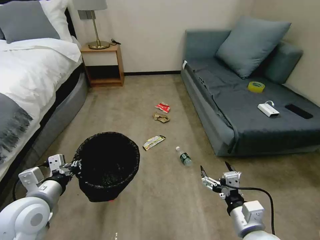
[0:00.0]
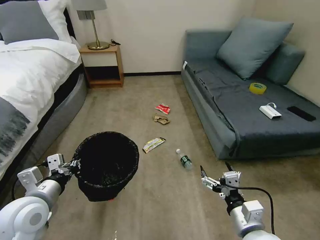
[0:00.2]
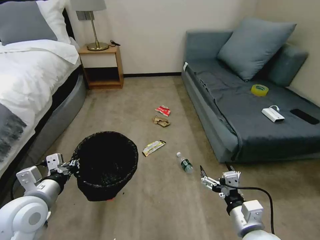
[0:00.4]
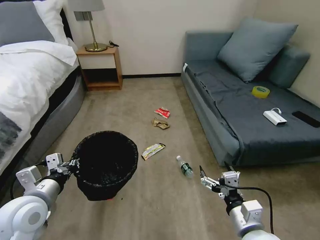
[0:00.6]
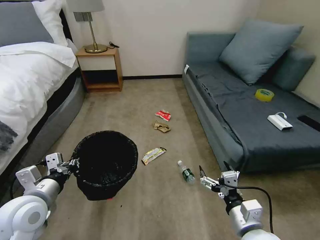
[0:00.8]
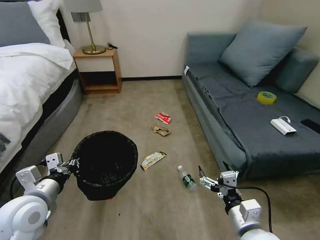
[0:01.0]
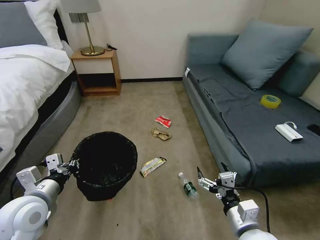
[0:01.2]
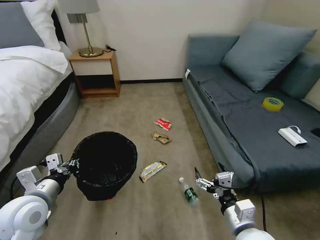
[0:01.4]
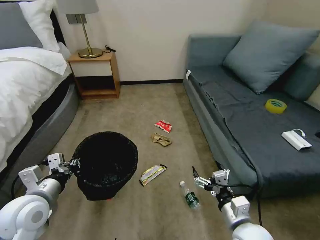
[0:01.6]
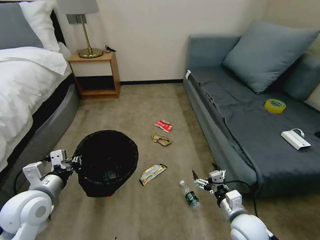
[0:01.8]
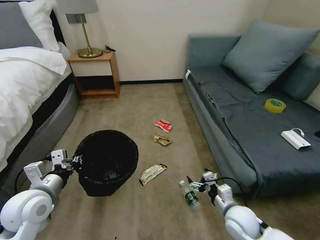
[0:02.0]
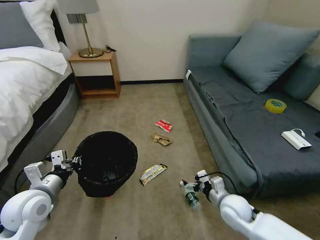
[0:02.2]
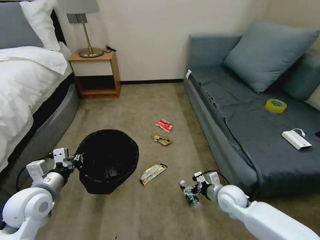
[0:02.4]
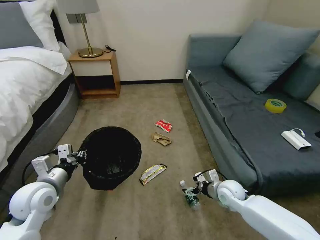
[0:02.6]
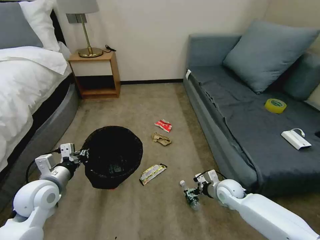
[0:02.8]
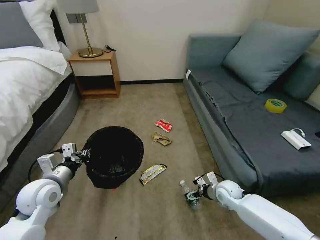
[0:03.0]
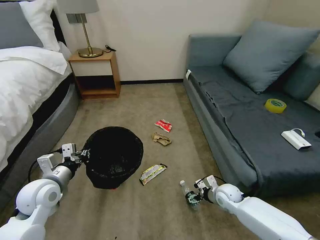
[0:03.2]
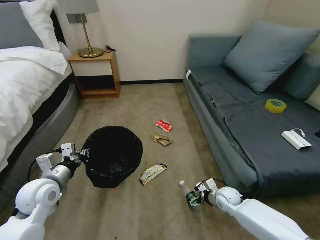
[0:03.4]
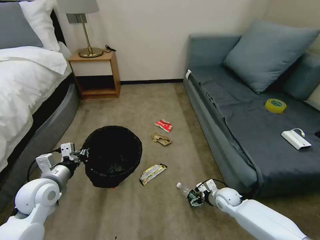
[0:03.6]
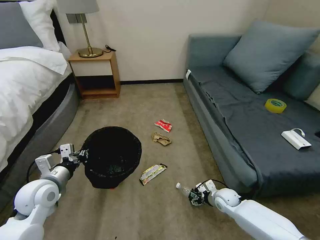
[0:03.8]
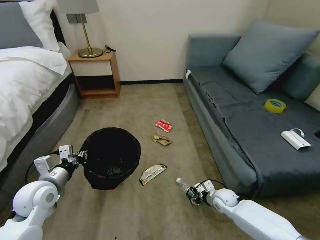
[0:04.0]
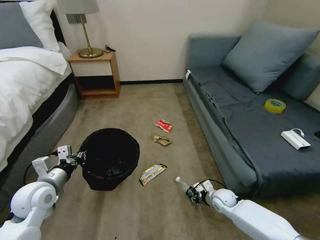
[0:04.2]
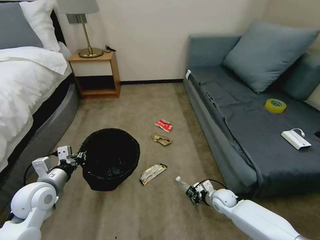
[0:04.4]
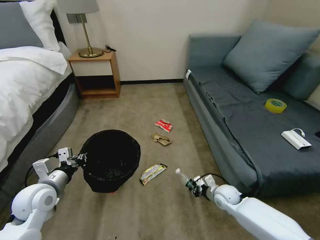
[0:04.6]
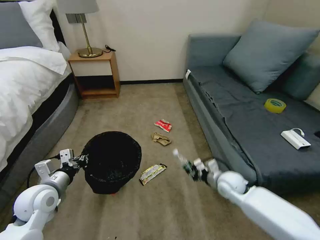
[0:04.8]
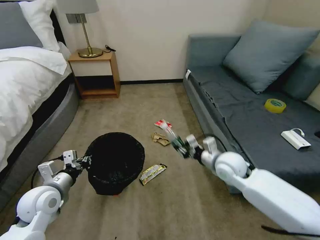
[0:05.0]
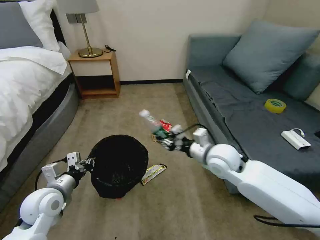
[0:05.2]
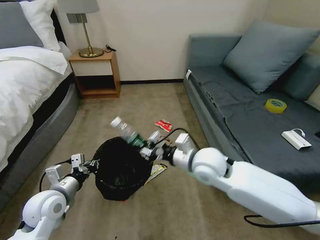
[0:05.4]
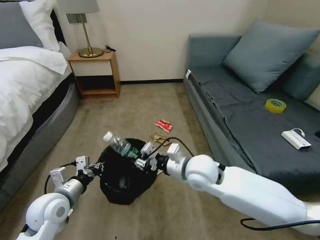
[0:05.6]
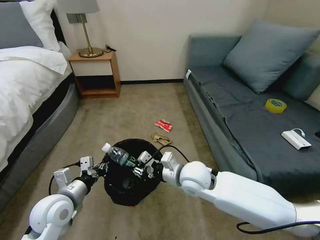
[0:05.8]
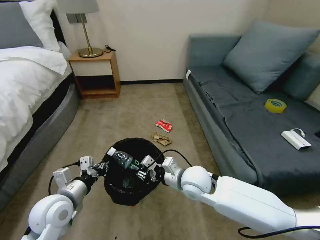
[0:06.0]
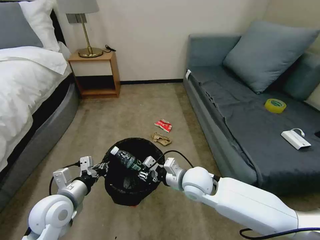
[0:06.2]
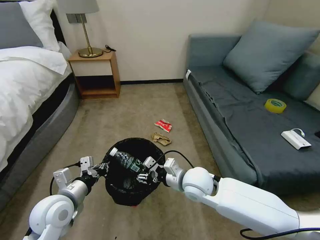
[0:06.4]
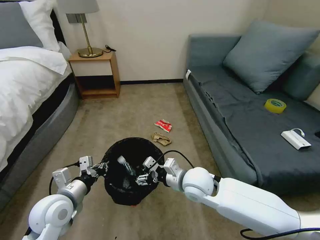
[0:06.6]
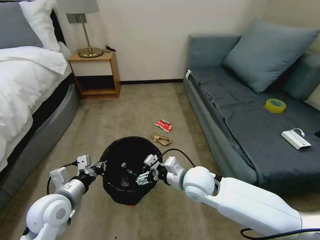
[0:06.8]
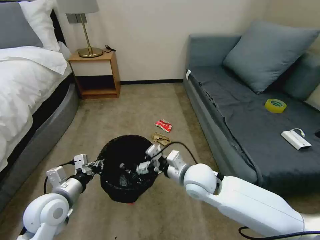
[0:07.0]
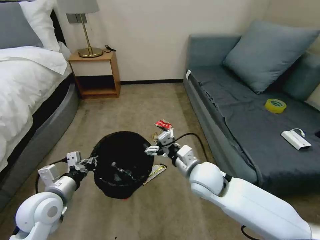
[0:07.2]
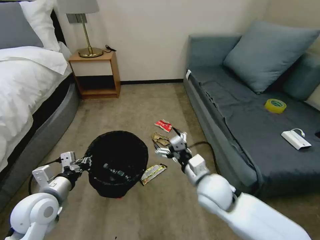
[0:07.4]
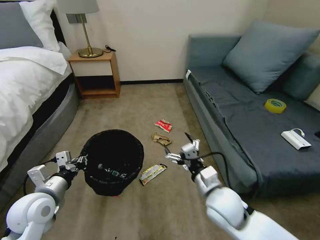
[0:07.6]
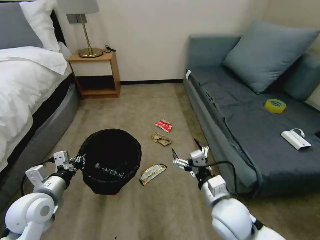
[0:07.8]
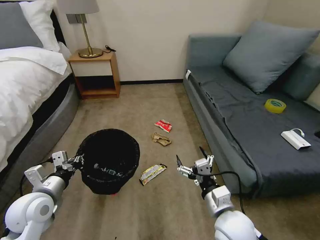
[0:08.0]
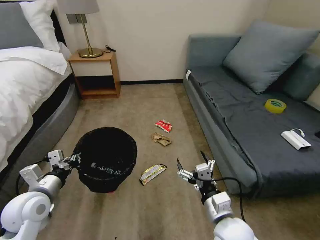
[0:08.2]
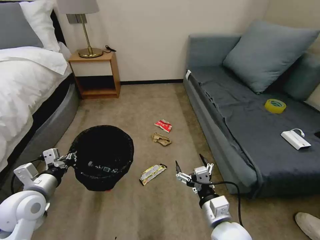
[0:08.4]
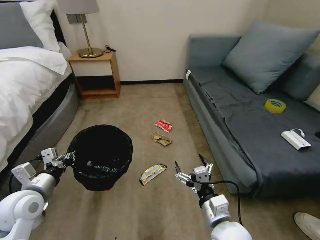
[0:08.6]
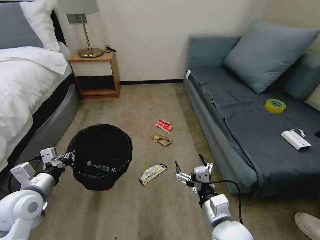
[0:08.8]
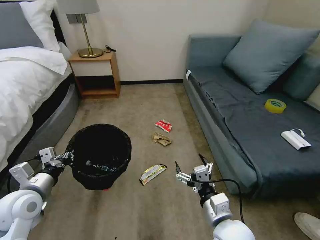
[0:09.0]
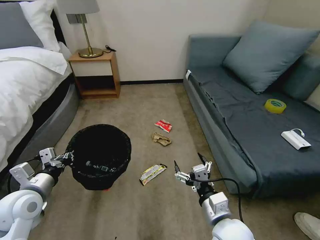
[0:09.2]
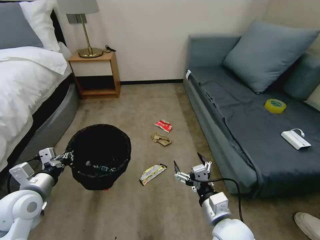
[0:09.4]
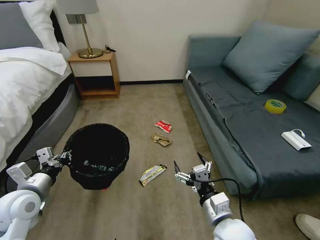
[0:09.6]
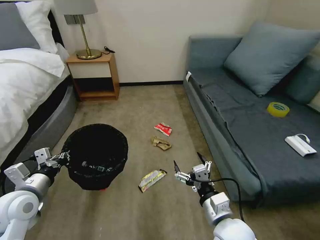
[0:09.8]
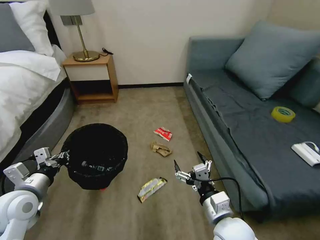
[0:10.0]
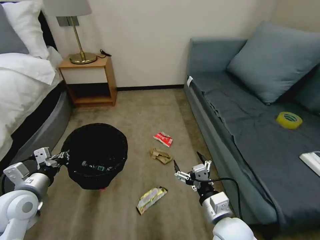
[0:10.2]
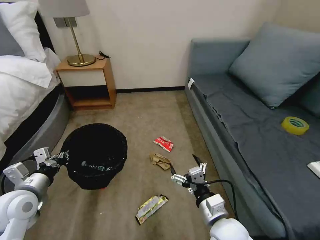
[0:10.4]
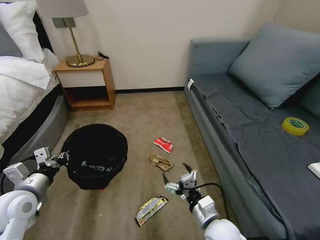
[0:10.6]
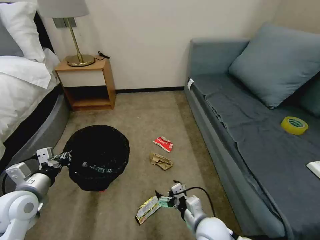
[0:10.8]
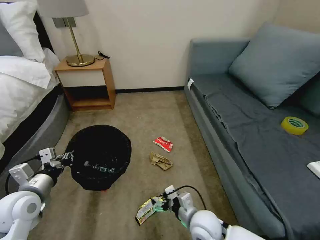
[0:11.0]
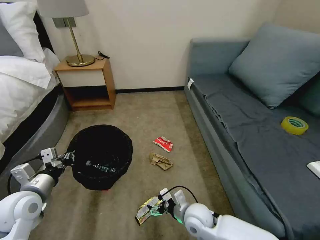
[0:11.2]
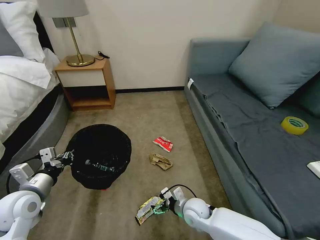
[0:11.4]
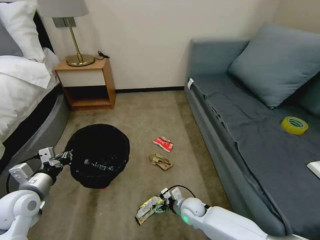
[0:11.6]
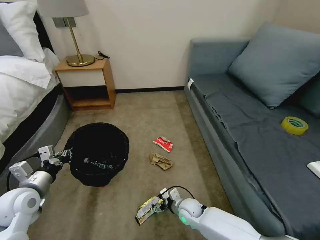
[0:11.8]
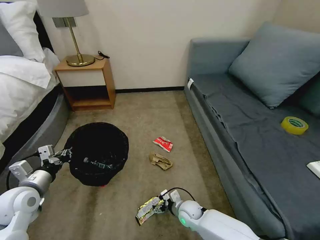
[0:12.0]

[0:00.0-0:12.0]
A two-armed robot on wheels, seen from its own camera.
Task of the whole recording: Pick up the trash bin, then pick up the garbage on the floor and place it into the trash bin.
0:01.6 to 0:03.0: The left gripper is displaced forward by approximately 5 cm. Meanwhile the right gripper shifts about 20 cm forward and downward.
0:03.0 to 0:04.4: The right gripper shifts approximately 5 cm downward, and closes.
0:04.4 to 0:06.0: The left gripper travels to the right by some 5 cm. Meanwhile the right gripper goes roughly 30 cm upward and to the left.
0:06.0 to 0:07.6: The right gripper goes about 10 cm backward and to the right, and opens.
0:07.6 to 0:09.0: The right gripper goes some 10 cm backward.
0:10.4 to 0:12.0: The right gripper heads downward and forward, covering approximately 25 cm.

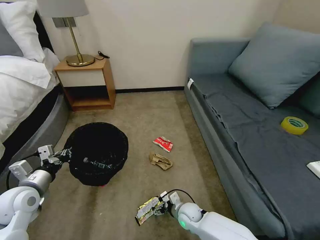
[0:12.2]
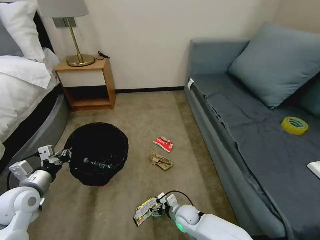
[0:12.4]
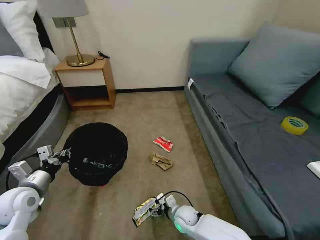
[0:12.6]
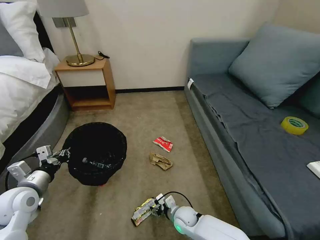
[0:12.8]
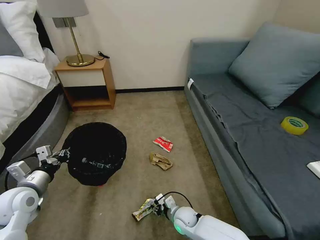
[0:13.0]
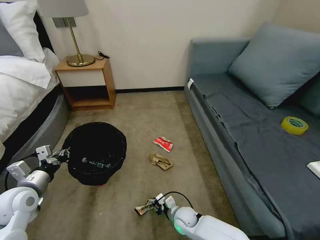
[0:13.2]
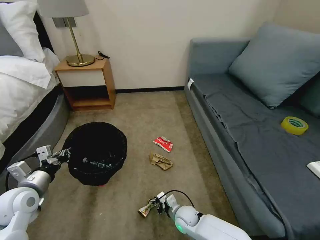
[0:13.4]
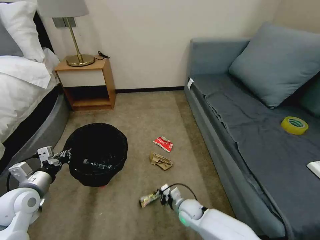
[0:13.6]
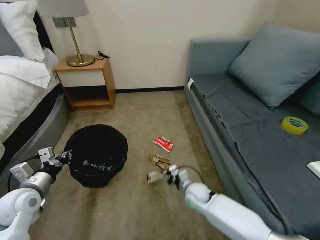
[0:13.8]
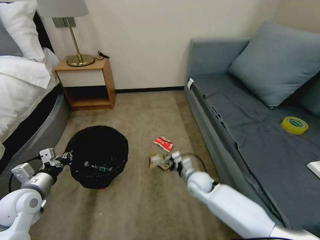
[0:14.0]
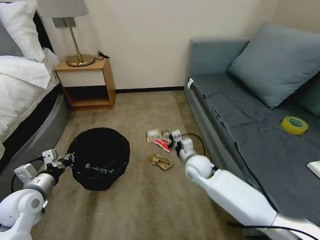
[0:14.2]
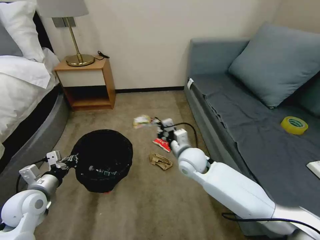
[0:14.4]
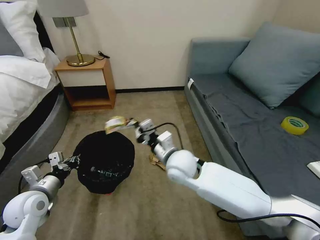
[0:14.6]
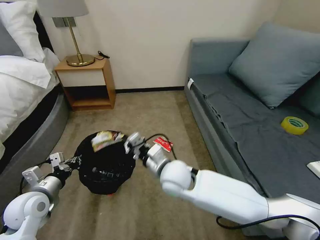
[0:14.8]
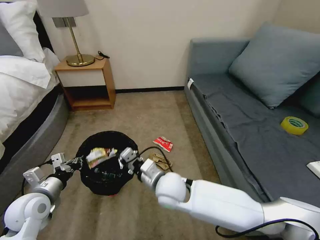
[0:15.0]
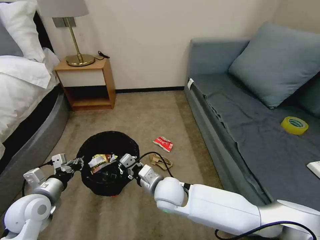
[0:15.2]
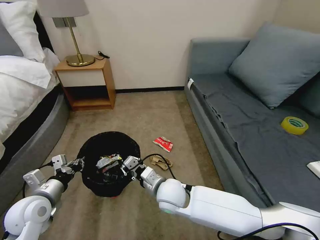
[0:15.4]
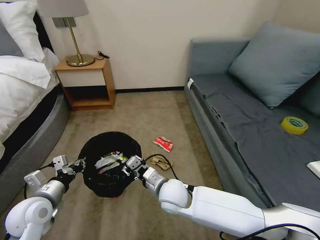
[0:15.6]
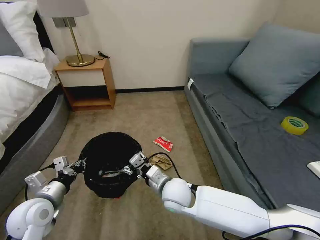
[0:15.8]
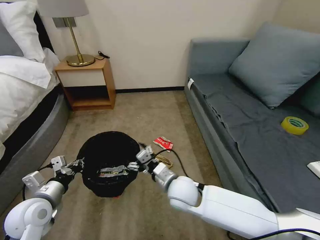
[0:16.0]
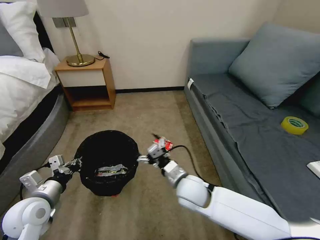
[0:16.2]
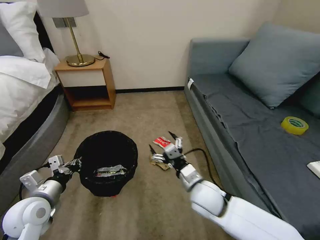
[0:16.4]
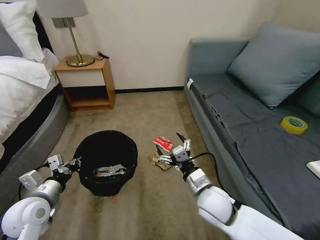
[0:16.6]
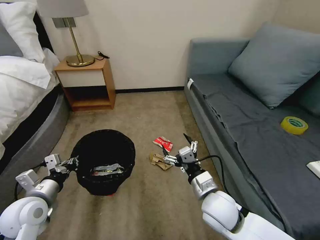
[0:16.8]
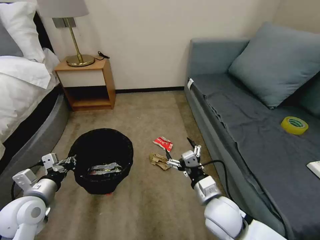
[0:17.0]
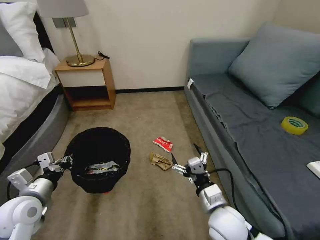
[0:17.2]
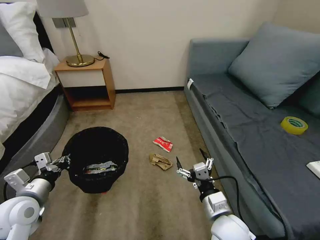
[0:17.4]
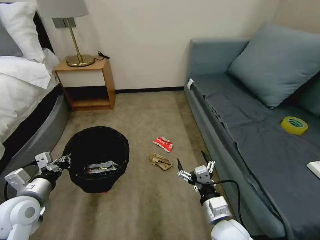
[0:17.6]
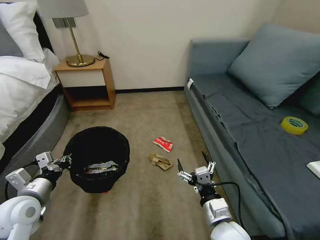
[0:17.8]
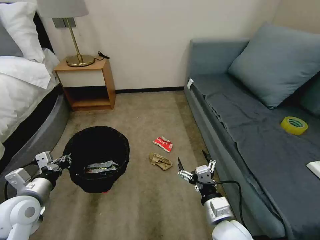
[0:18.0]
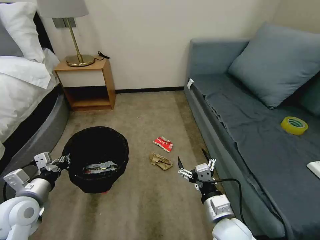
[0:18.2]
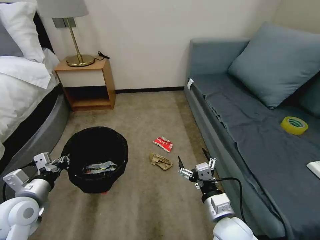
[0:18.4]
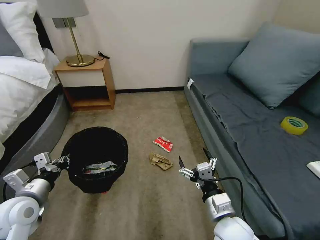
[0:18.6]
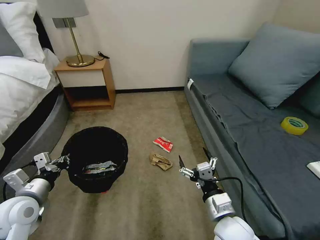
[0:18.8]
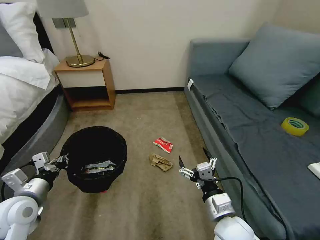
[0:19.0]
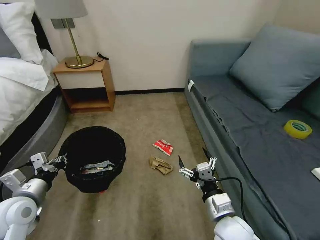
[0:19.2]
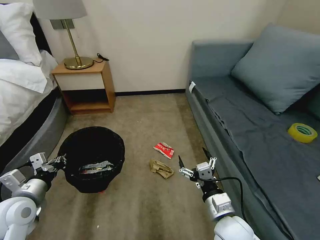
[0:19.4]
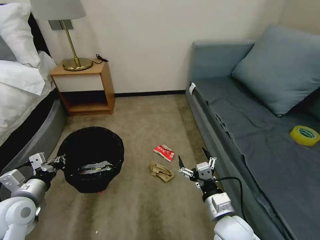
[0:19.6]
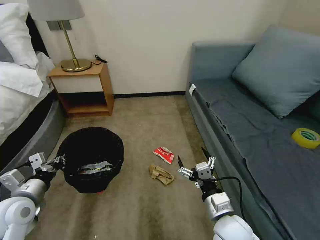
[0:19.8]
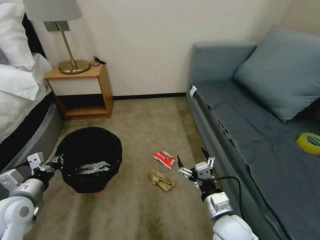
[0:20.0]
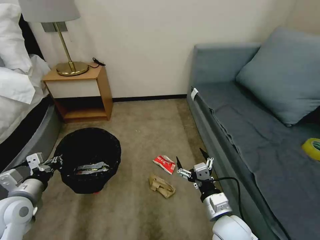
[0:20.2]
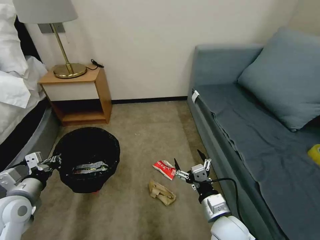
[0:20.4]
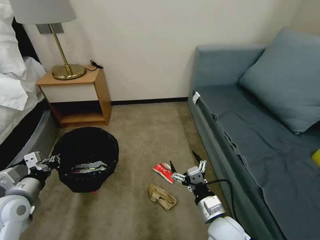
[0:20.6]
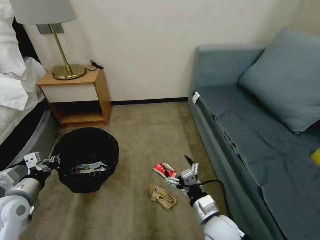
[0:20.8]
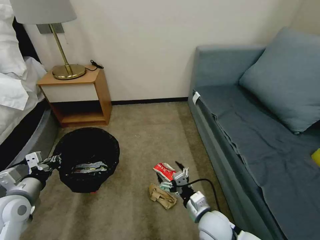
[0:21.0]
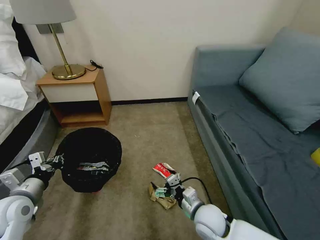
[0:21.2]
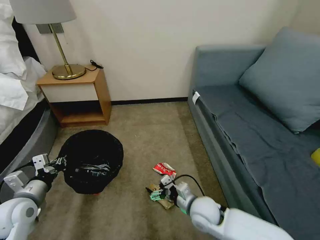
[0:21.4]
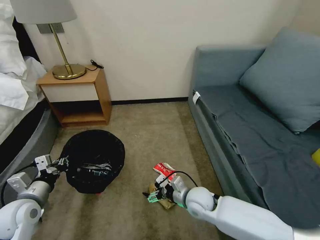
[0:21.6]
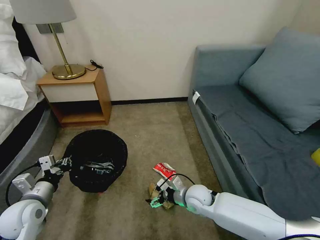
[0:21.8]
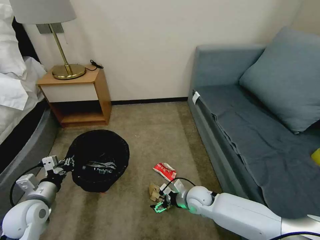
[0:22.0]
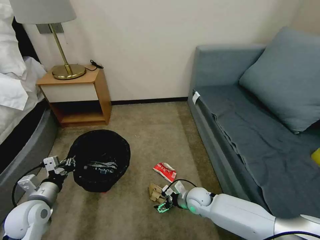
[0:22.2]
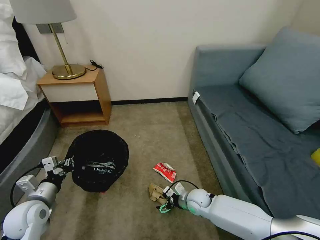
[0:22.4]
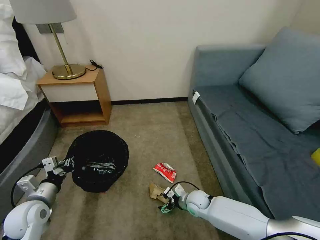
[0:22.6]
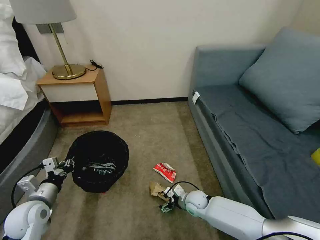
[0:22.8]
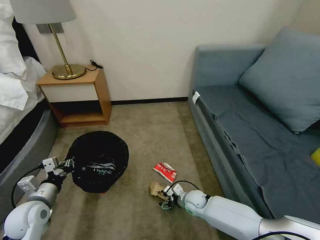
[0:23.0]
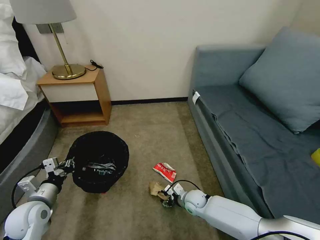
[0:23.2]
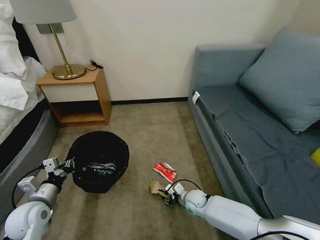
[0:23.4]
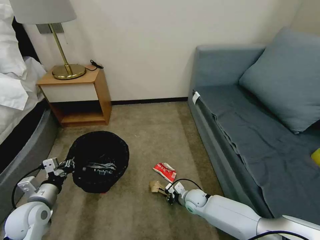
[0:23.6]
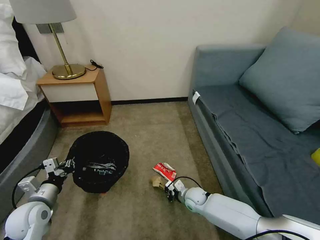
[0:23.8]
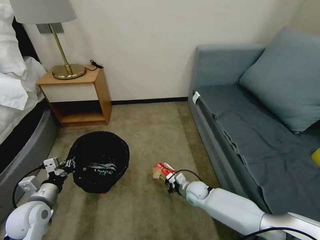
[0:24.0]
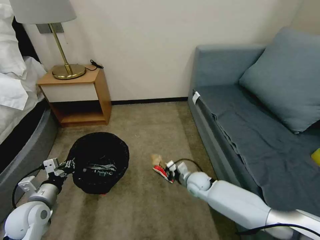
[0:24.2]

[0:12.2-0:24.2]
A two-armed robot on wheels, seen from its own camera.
Task of the whole recording: Pick up the trash bin, then pick up the garbage on the floor and place it into the trash bin.
0:12.2 to 0:13.8: The right gripper is displaced upward and forward by approximately 10 cm, and closes its fingers.
0:13.8 to 0:15.2: The right gripper travels upward and to the left by roughly 20 cm.
0:15.2 to 0:16.6: The right gripper is displaced to the right by approximately 15 cm, and opens up.
0:16.6 to 0:18.2: The right gripper moves backward, roughly 10 cm.
0:19.8 to 0:21.2: The right gripper shifts some 5 cm downward.
0:21.2 to 0:22.6: The right gripper moves downward and forward, about 15 cm, while the left gripper shifts by roughly 5 cm.
0:22.6 to 0:24.2: The right gripper is displaced forward by some 5 cm, and closes.
